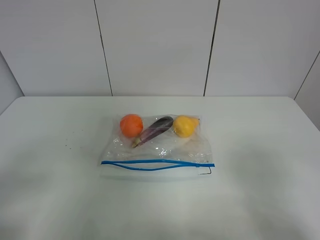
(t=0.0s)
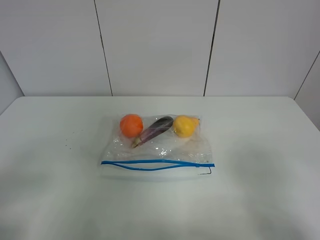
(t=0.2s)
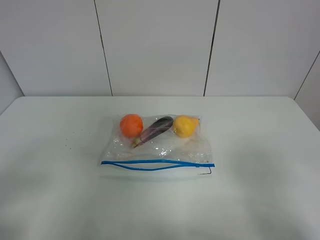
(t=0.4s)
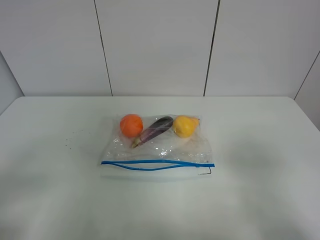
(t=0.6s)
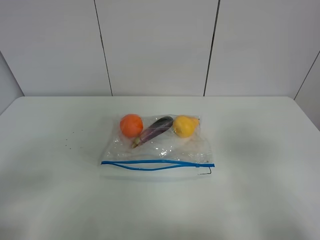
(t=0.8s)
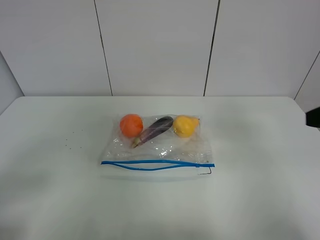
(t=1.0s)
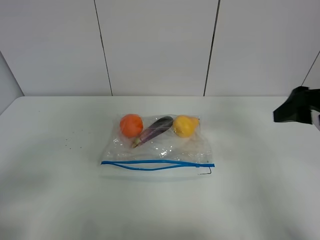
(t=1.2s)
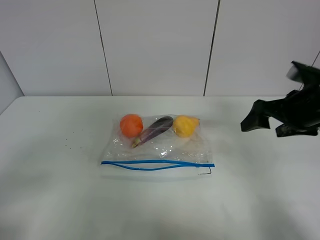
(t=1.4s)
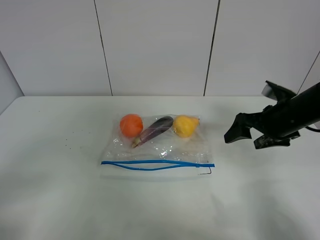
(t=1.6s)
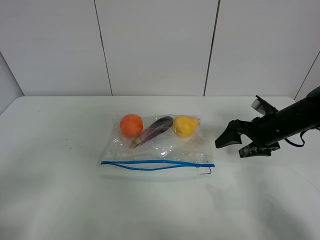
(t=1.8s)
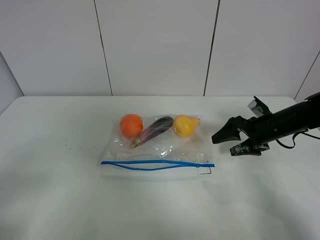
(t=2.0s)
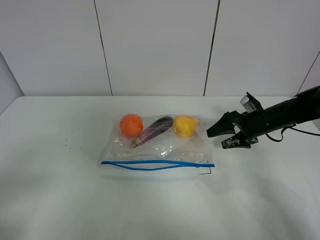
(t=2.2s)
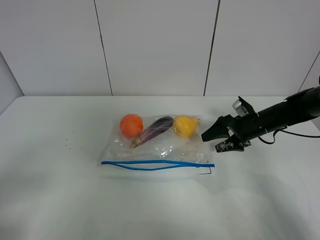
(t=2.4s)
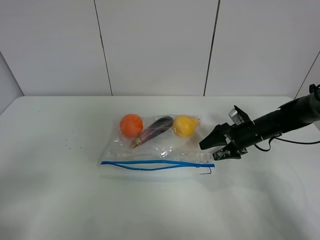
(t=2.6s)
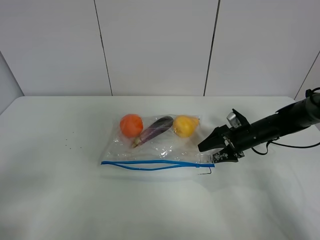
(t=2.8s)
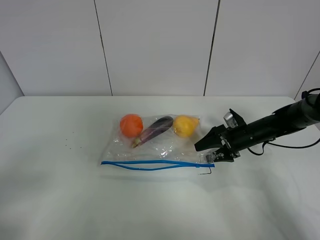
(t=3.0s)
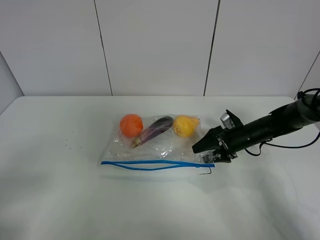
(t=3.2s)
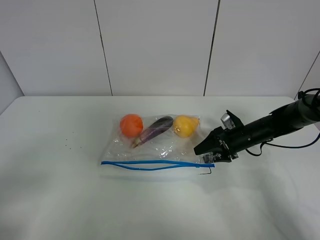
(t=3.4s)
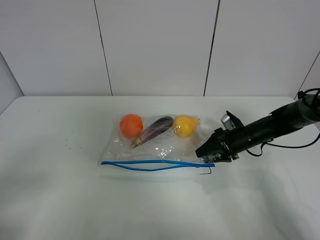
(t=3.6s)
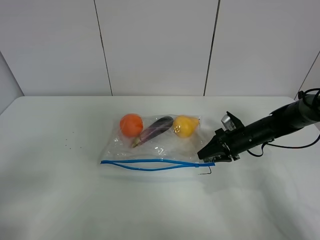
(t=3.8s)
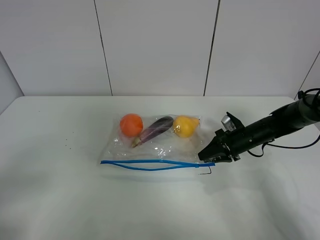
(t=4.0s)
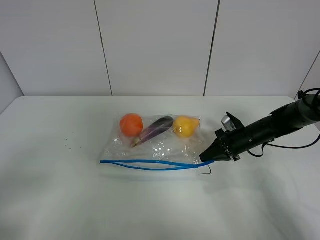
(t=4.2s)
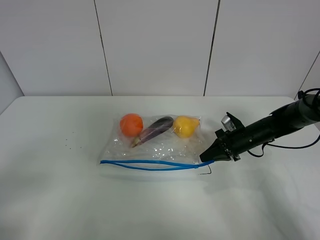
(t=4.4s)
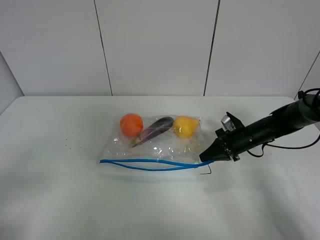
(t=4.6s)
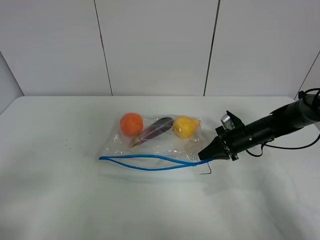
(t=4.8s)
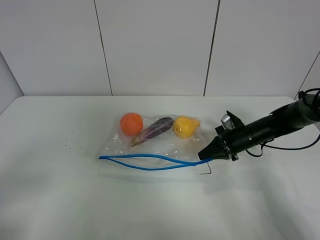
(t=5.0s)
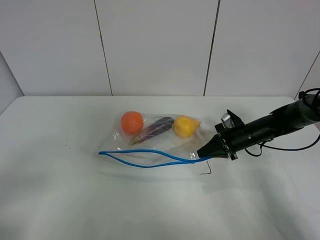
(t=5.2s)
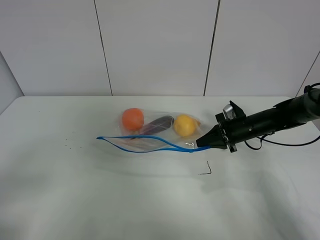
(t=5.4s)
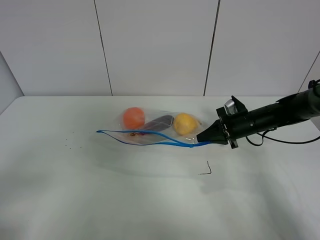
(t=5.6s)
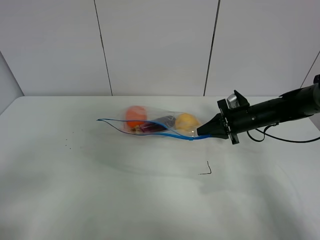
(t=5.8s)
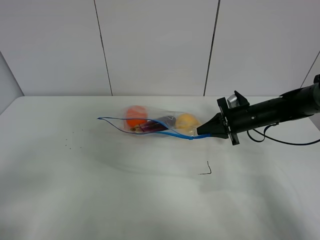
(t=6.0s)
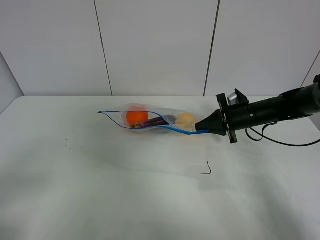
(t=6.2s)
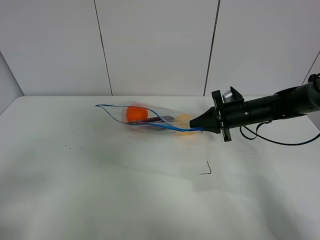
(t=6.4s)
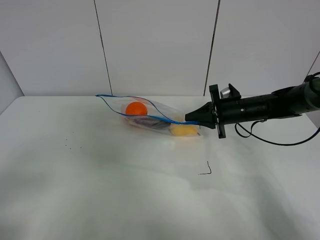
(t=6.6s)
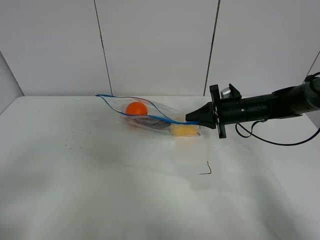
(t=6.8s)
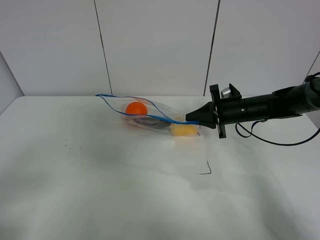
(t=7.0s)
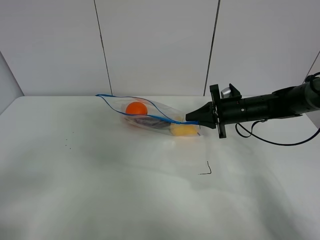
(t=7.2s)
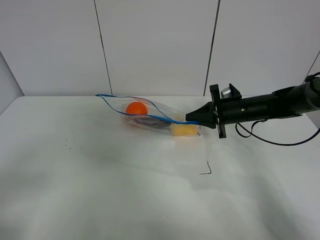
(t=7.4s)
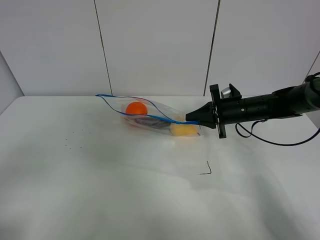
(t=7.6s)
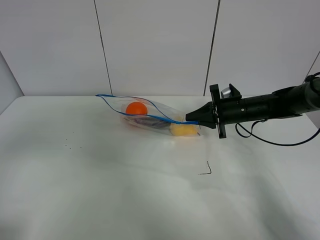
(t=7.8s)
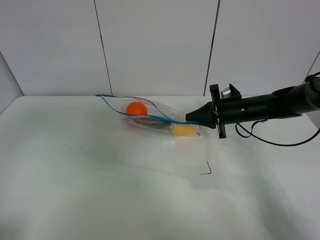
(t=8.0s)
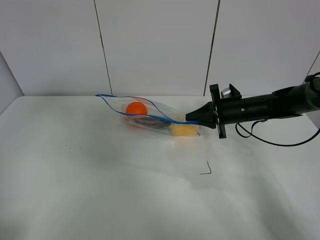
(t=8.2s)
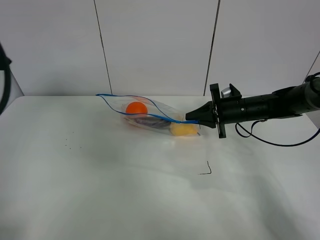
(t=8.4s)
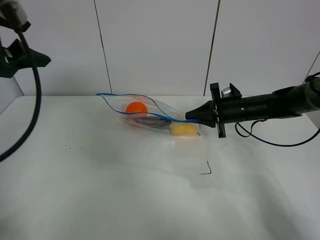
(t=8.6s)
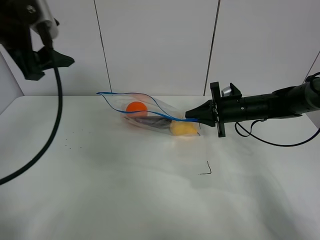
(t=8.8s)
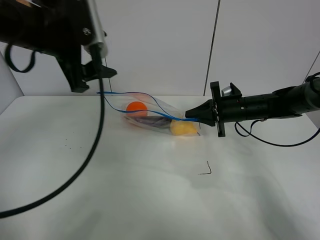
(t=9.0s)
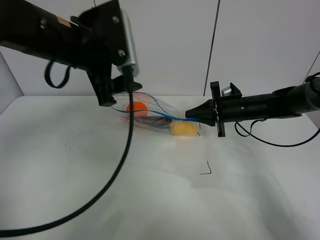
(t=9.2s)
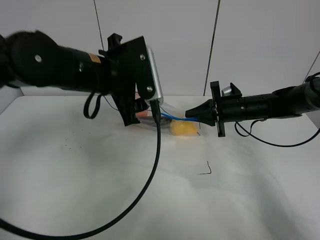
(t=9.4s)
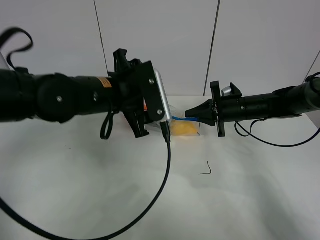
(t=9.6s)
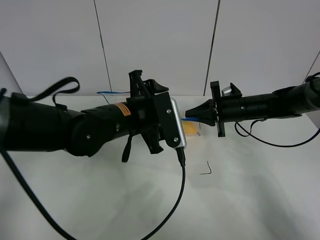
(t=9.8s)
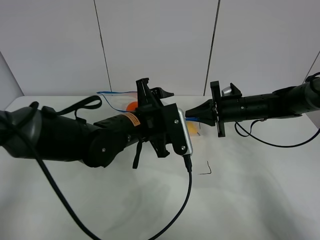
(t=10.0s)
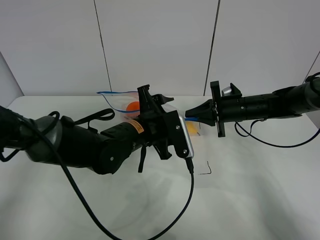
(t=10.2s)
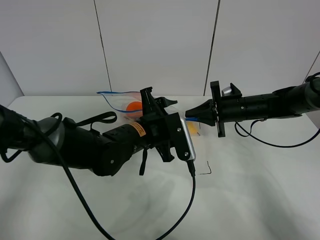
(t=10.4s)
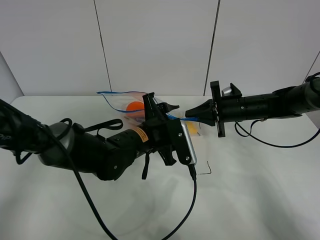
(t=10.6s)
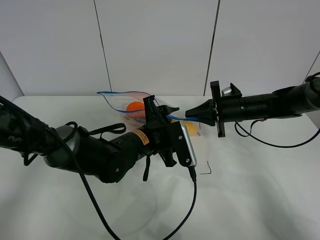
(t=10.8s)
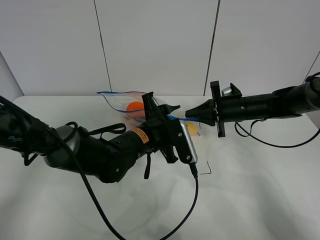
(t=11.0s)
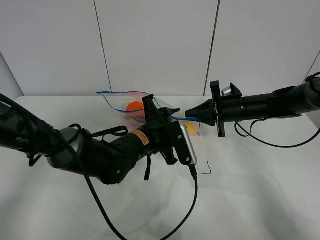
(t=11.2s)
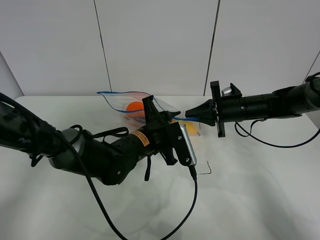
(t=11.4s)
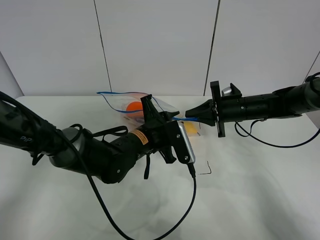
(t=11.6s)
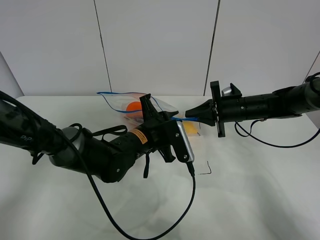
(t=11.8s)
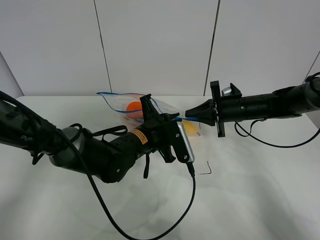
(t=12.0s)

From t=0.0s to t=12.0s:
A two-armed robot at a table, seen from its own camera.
Step, from t=0.0s to t=4.2s: Grasp the fruit bag with right gripper.
Step, from t=4.4s to t=6.8s: Lift the fruit bag with your right gripper.
From t=0.0s to t=1.6s: The right gripper is displaced forward by about 30 cm.
From t=1.6s to t=3.0s: The right gripper is displaced downward and forward by about 15 cm.
From t=3.0s to t=4.4s: The right gripper closes its fingers.
From t=4.4s to t=6.0s: The right gripper heads upward, covering approximately 5 cm.
From t=6.0s to t=7.6s: The grippers stay close to where they were, moving slightly.
From t=7.6s to t=9.0s: The left gripper goes some 30 cm forward and to the right.
From t=9.0s to t=10.4s: The left gripper goes roughly 25 cm downward and to the right.
From t=10.4s to t=12.0s: The left gripper closes.

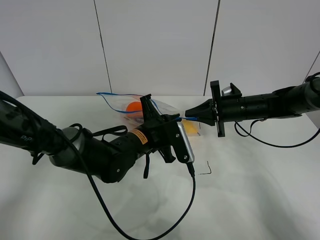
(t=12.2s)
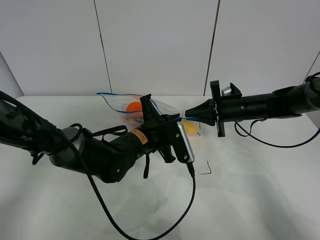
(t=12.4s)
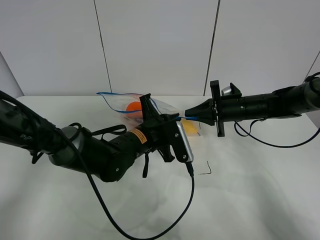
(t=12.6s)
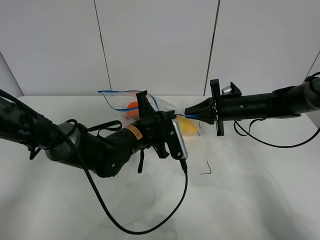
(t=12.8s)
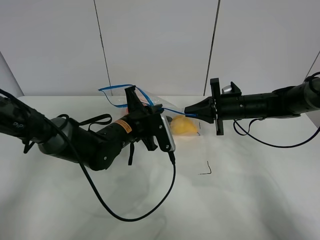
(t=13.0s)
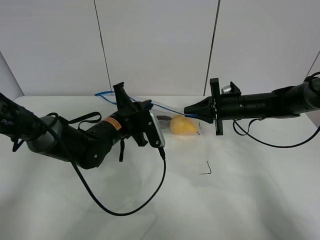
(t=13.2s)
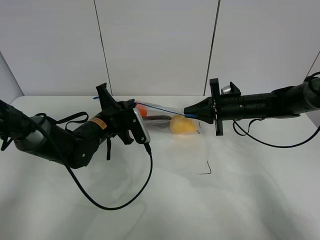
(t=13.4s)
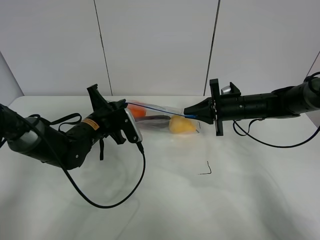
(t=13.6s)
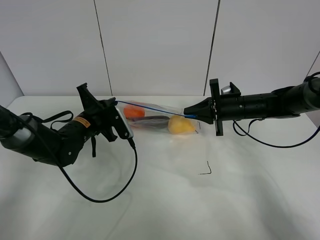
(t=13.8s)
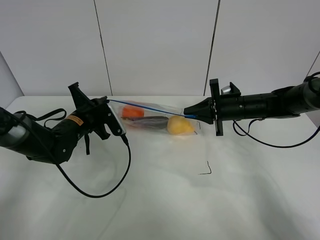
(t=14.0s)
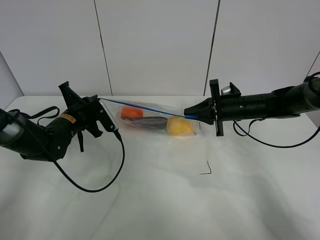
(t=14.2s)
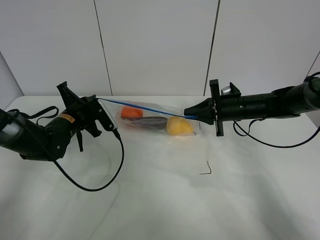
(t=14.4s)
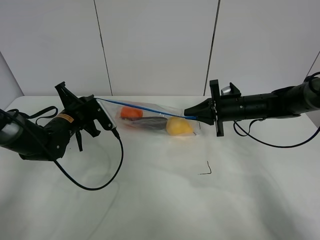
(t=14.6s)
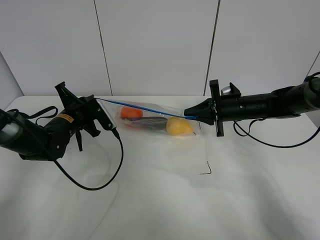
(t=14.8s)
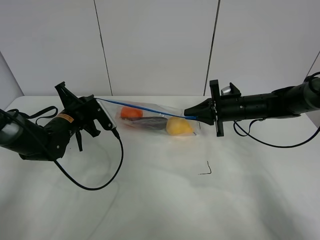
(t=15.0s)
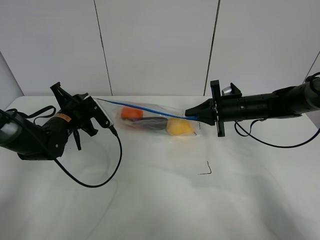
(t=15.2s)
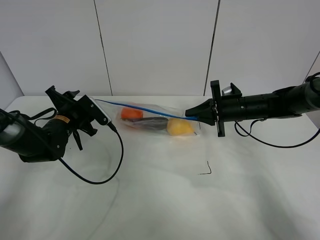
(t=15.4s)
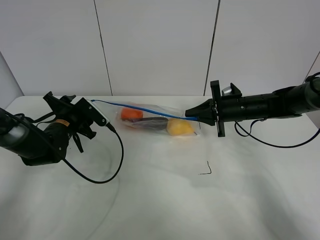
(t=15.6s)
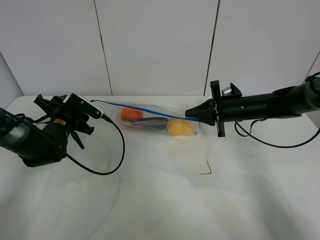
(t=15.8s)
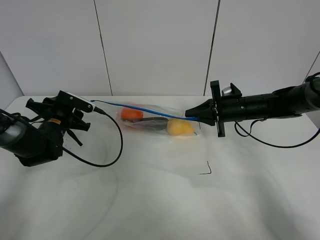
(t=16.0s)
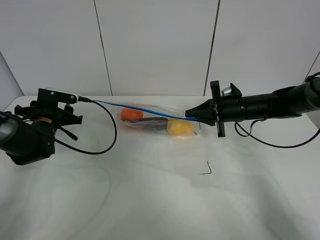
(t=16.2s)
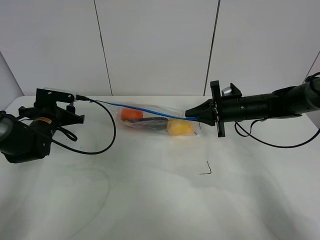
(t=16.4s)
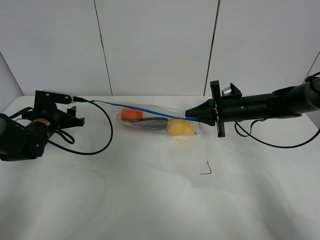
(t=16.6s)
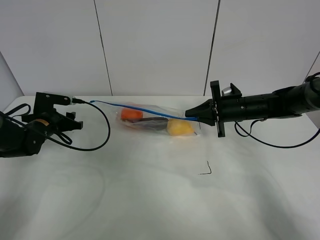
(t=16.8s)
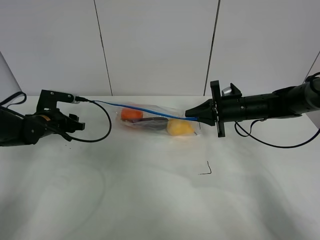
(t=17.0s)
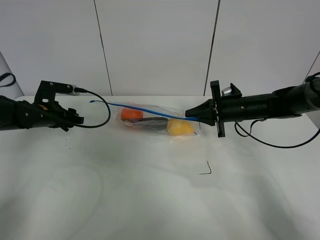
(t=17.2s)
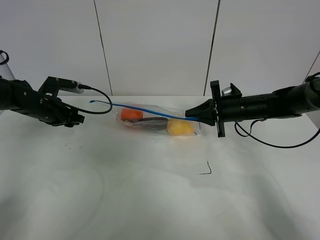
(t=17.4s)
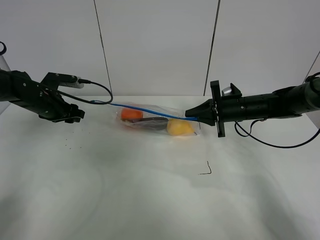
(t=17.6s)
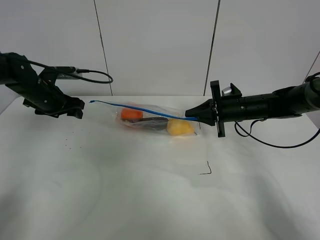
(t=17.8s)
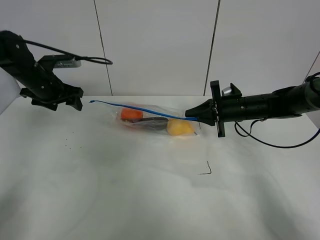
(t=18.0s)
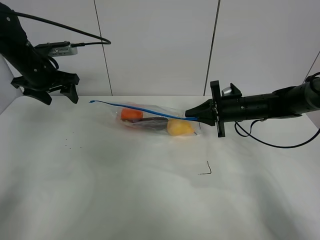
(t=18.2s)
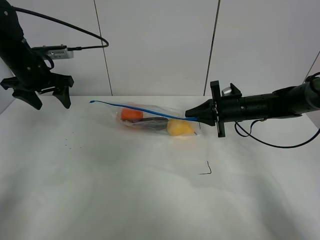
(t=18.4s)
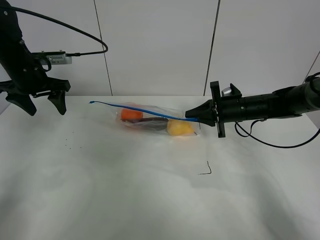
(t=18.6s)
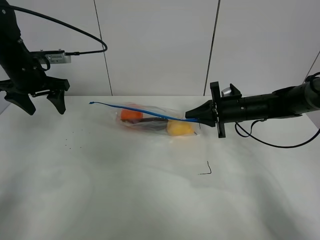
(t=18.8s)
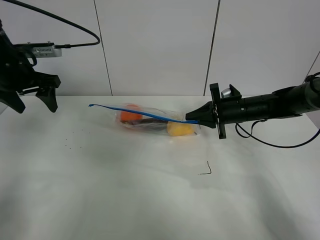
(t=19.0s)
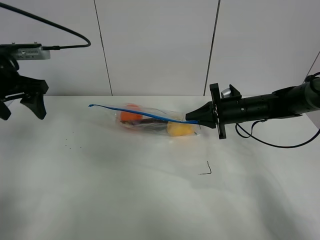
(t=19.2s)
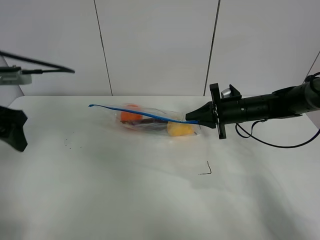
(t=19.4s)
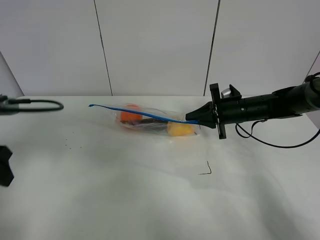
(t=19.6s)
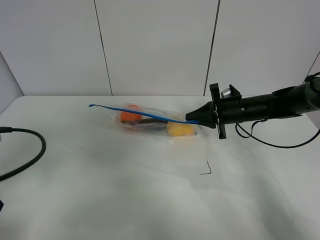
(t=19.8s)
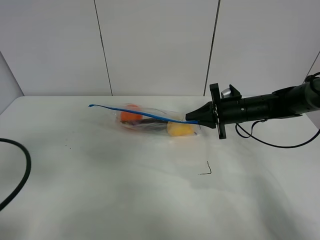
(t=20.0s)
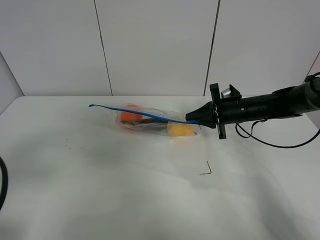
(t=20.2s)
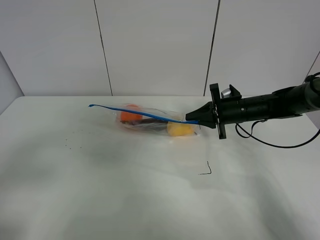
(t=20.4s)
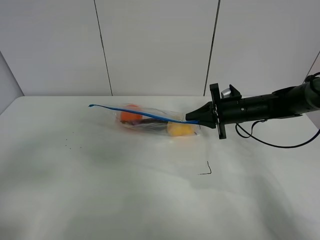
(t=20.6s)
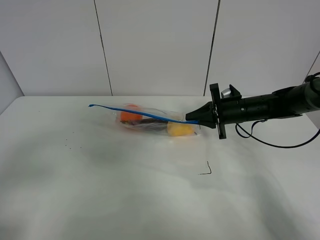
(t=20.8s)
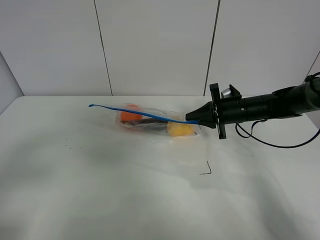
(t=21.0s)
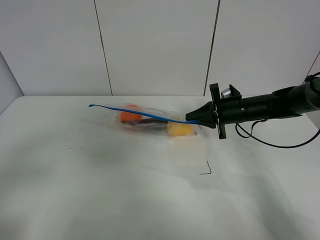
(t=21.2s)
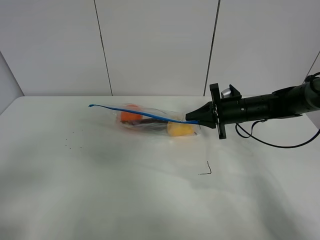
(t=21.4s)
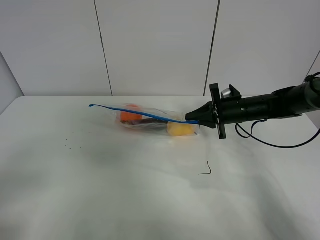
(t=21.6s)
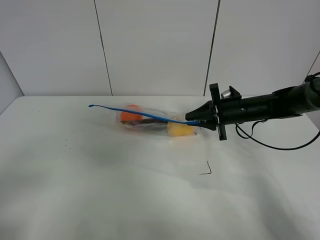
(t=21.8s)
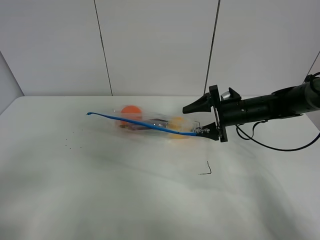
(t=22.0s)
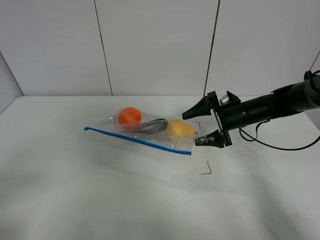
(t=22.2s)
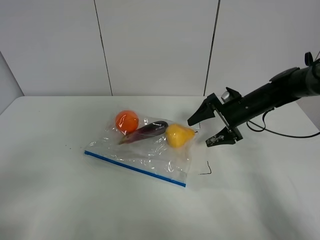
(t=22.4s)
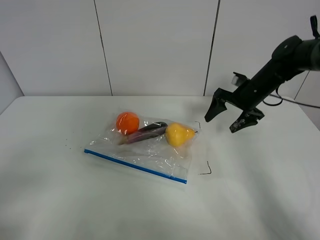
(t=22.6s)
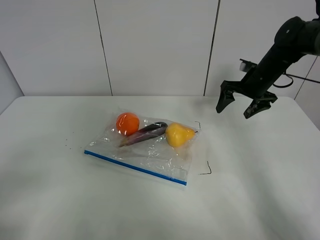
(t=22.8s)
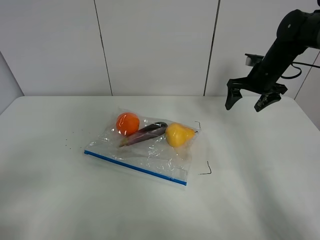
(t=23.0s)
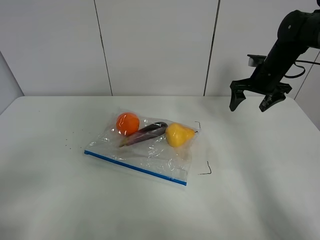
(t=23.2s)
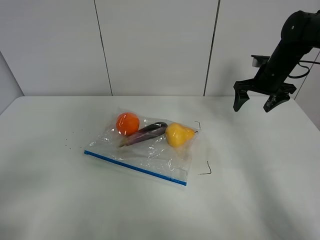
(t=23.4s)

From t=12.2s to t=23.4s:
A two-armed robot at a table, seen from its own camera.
Step, from t=12.2s to t=15.2s: Pull the fruit bag with left gripper.
From t=12.2s to t=13.8s: The left gripper goes about 15 cm to the left.
From t=13.8s to t=15.4s: The left gripper moves to the left, about 5 cm, and opens up.
From t=15.4s to t=17.0s: The left gripper heads to the left, covering approximately 5 cm.
From t=17.0s to t=18.6s: The left gripper shifts about 15 cm upward.
From t=18.6s to t=20.2s: The left gripper moves backward, approximately 30 cm.
From t=21.8s to t=23.4s: The right gripper heads upward, to the right and forward, covering some 10 cm, and opens its fingers.
